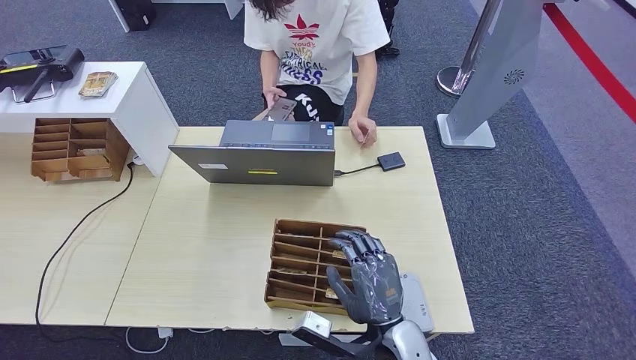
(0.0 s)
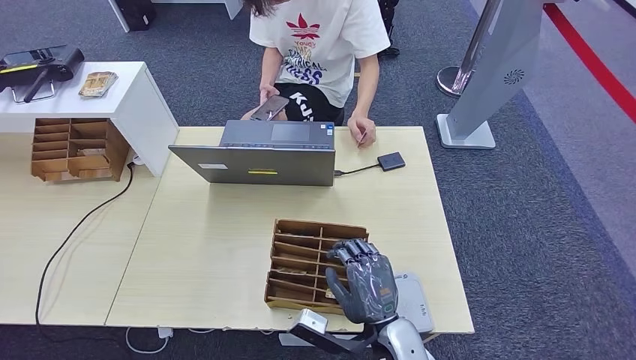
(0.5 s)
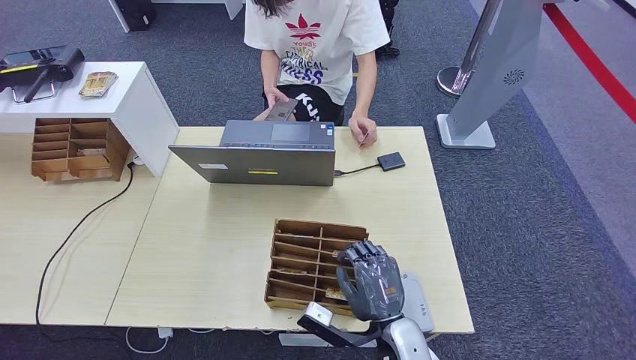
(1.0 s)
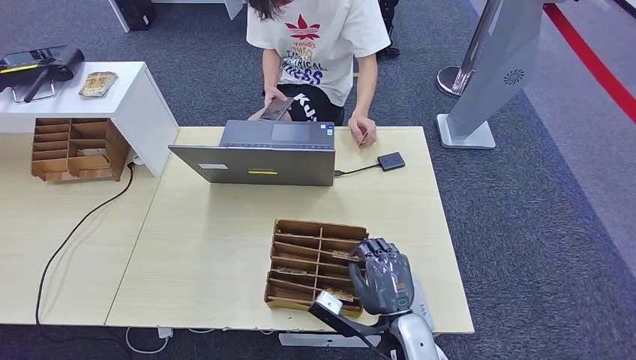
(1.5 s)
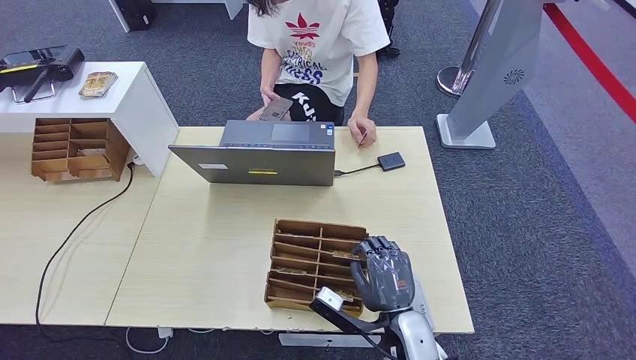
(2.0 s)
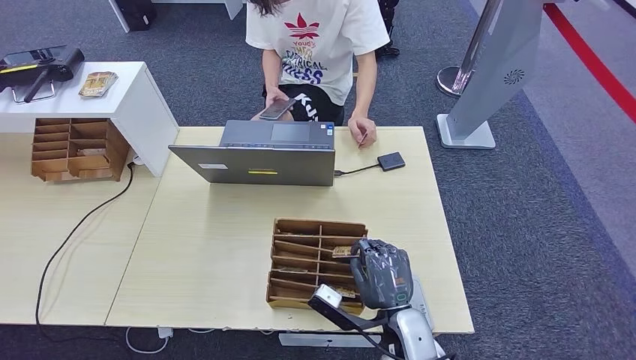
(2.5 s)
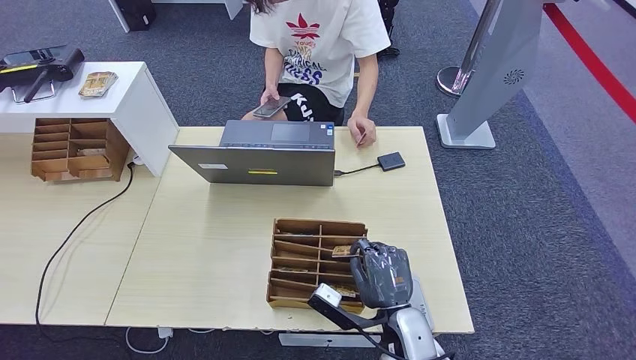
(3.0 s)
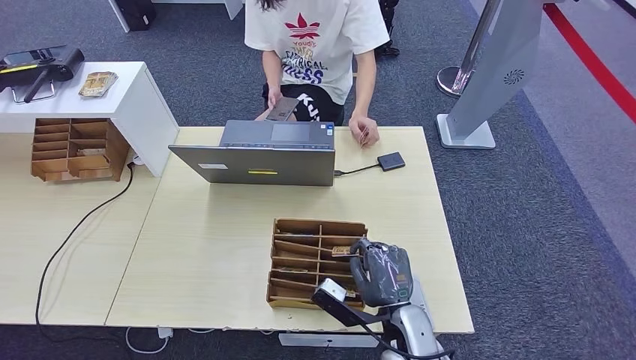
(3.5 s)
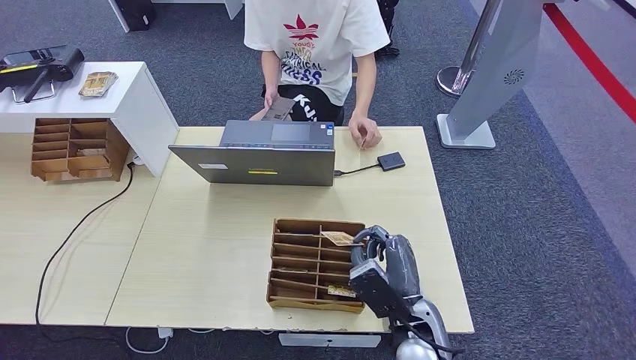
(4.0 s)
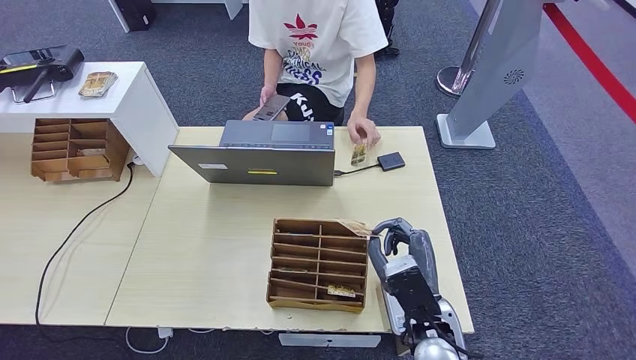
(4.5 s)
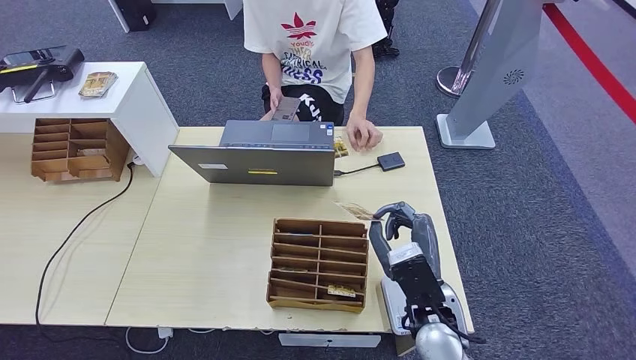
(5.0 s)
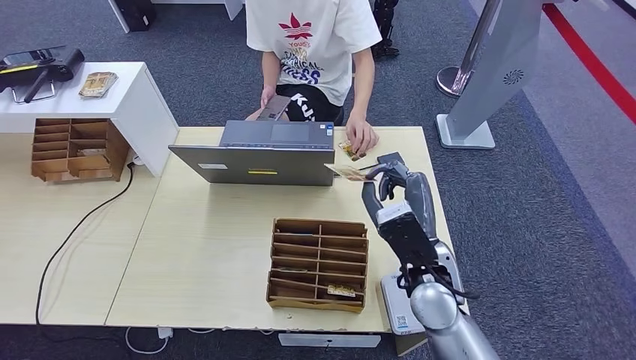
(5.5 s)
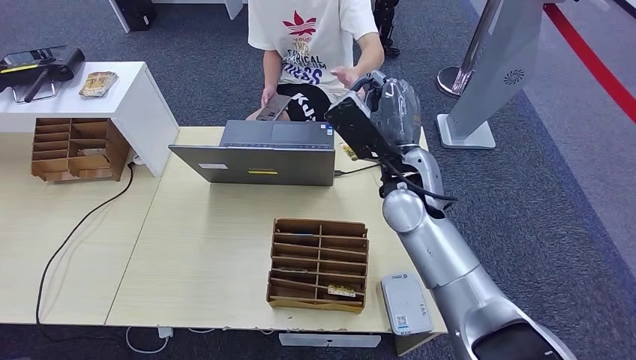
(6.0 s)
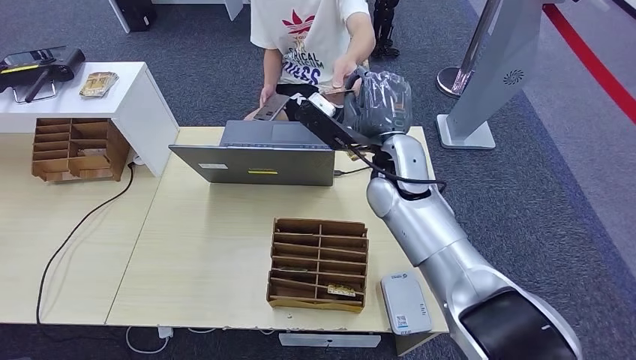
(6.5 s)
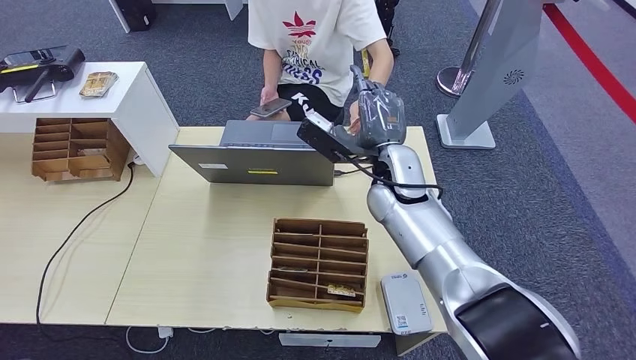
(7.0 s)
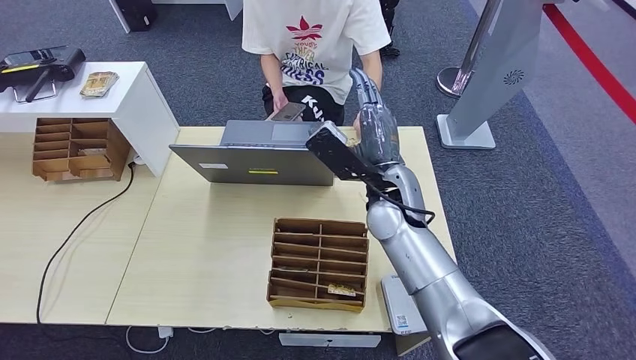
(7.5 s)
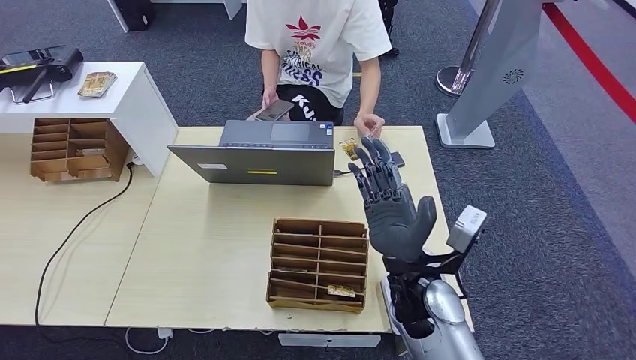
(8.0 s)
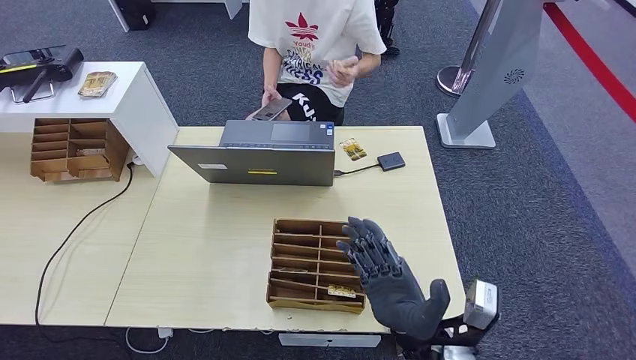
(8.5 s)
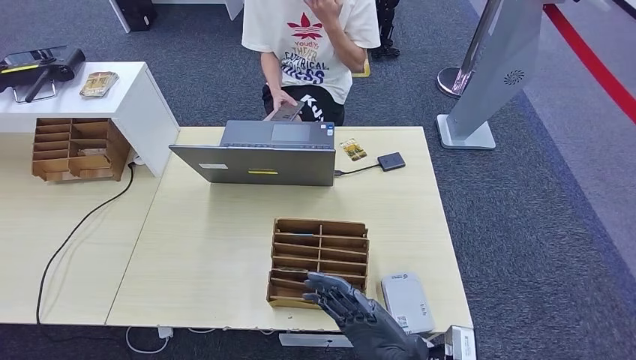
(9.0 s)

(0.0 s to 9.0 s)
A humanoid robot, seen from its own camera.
Step, 0.0 s - 4.5 s: Pick up the room key from the key card box.
Step, 5.0 s - 9.0 s: Hand the room key to the person.
0.0 s - 2.0 s: The hands make only small movements.
2.0 s - 4.5 s: The right hand moves upward, about 5 cm.
4.5 s - 7.0 s: The right hand shifts about 25 cm forward and upward.
7.0 s - 9.0 s: The right hand heads backward and downward, covering approximately 30 cm.
